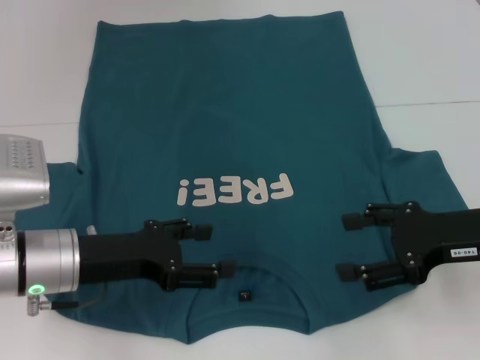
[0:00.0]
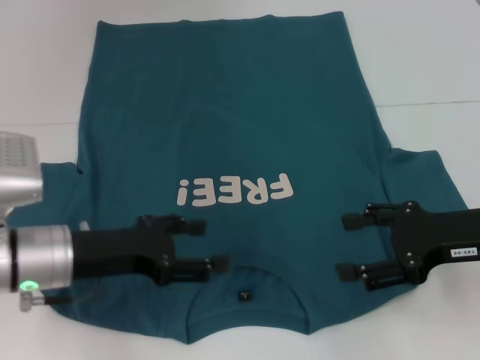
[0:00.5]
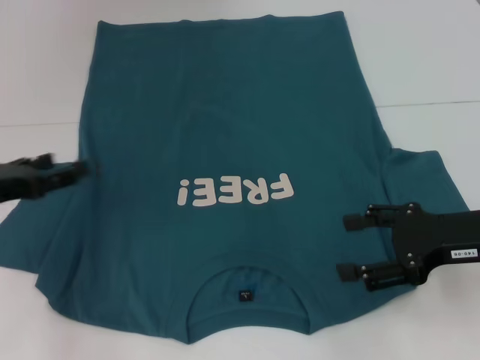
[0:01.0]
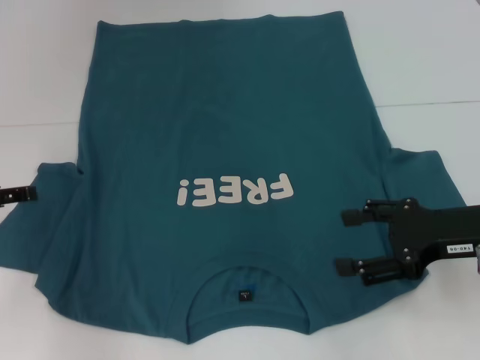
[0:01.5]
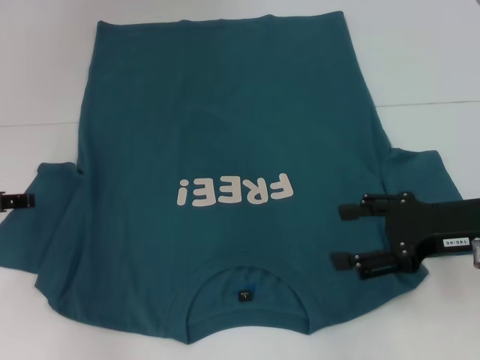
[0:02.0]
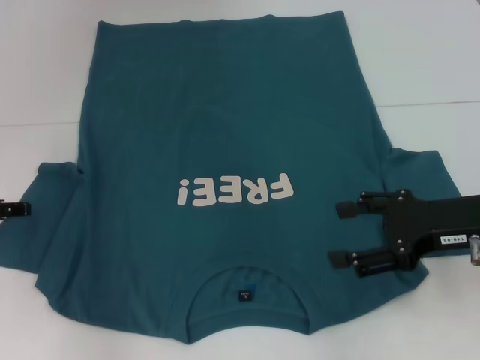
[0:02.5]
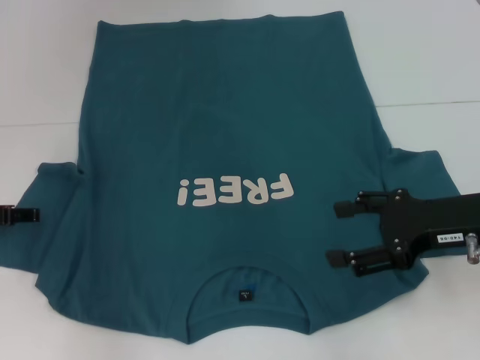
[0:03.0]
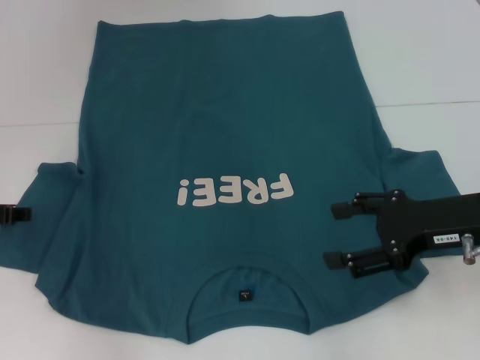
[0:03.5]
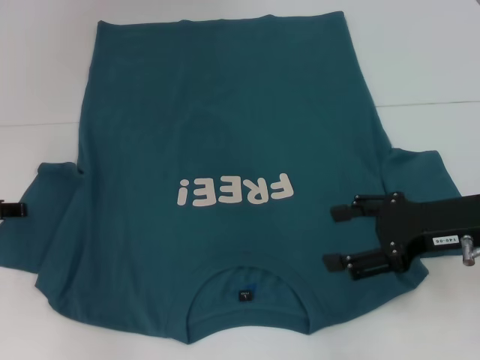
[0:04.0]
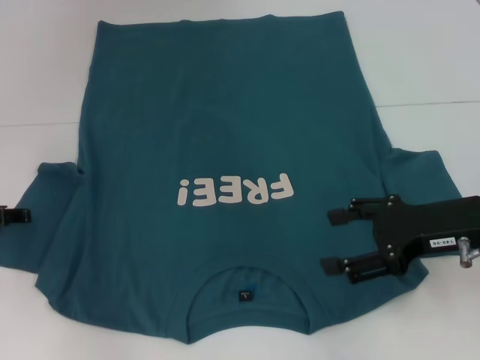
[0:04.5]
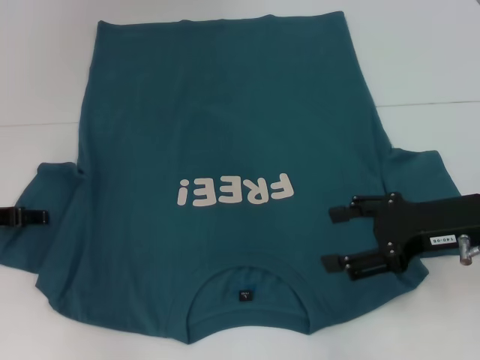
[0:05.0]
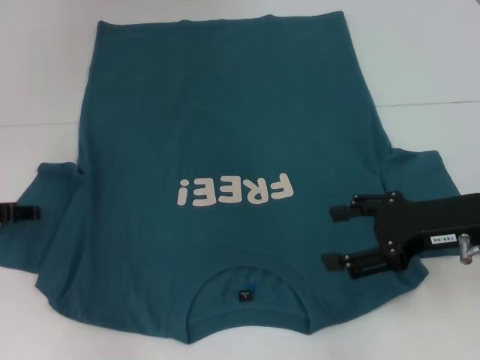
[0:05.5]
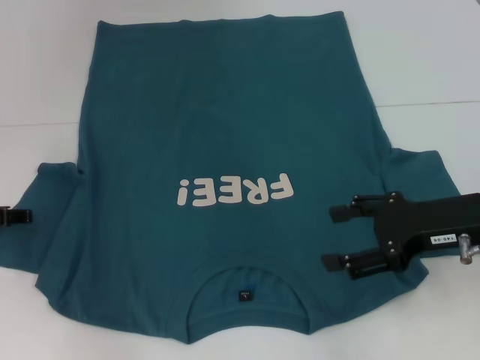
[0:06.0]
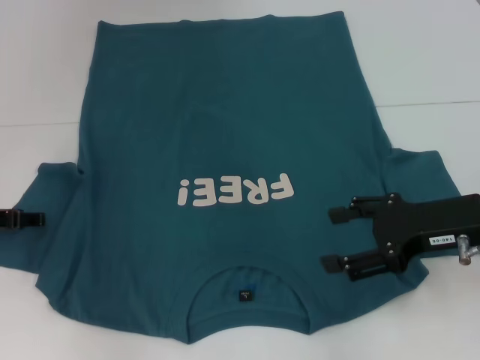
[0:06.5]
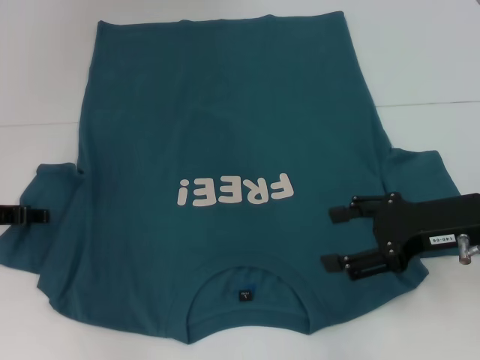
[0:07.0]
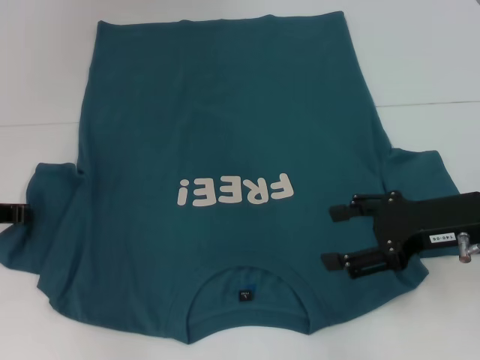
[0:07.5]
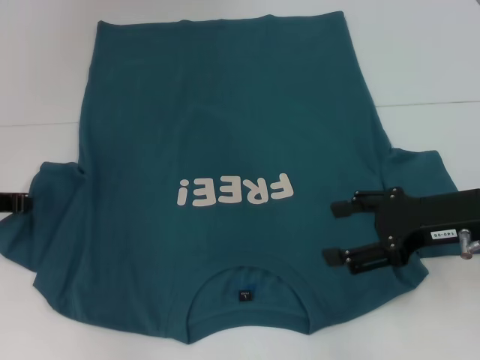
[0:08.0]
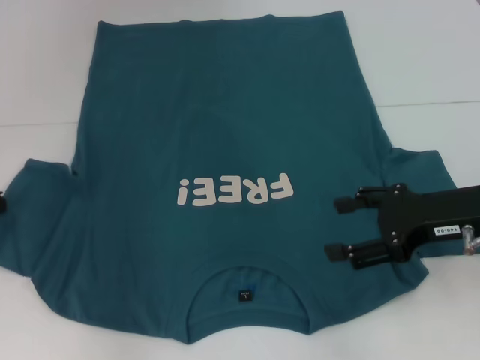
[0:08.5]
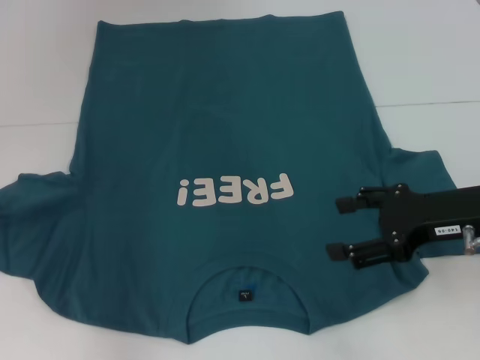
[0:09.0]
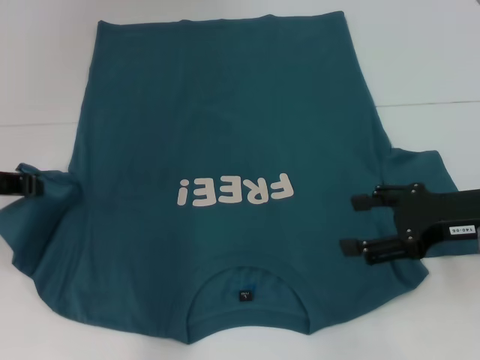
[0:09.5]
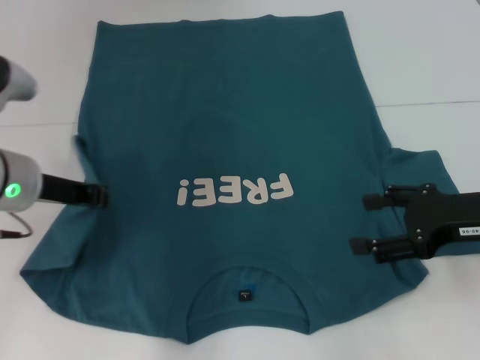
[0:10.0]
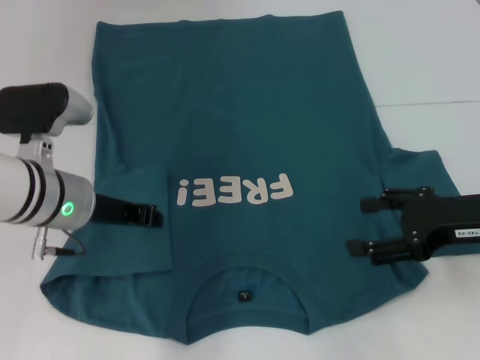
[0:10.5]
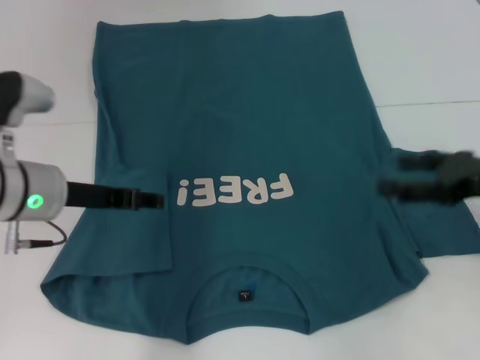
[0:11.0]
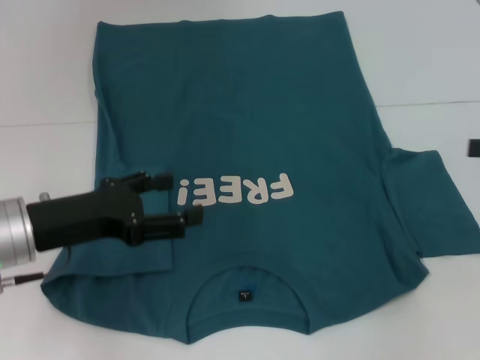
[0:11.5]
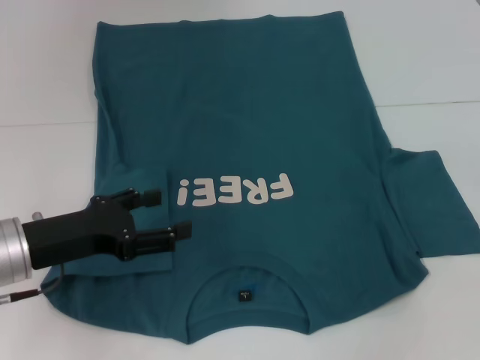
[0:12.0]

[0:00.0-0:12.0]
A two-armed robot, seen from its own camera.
Step, 0:00.0 to 0:10.5: Fold the bottom left sleeve with your left hand.
0:00.0 to 0:02.0: The left gripper is displaced to the left and forward by some 15 cm.
0:06.0 to 0:08.0: The left gripper closes its fingers.
0:08.0 to 0:10.0: The left gripper moves to the right and upward, approximately 10 cm.
0:10.0 to 0:12.0: The right gripper is displaced to the right by about 15 cm. The left gripper heads backward and downward, covering approximately 10 cm, and opens up.

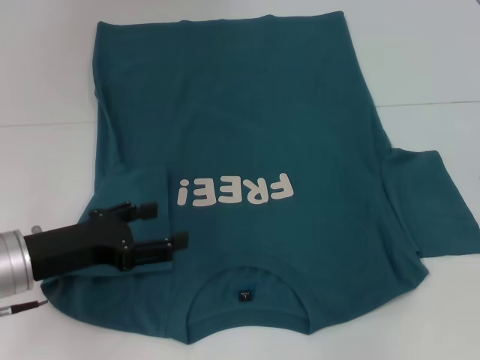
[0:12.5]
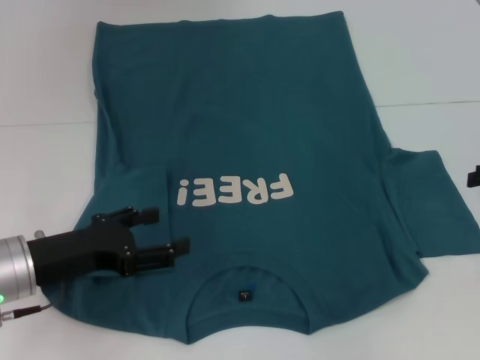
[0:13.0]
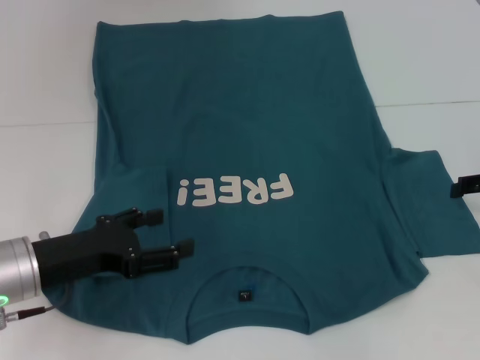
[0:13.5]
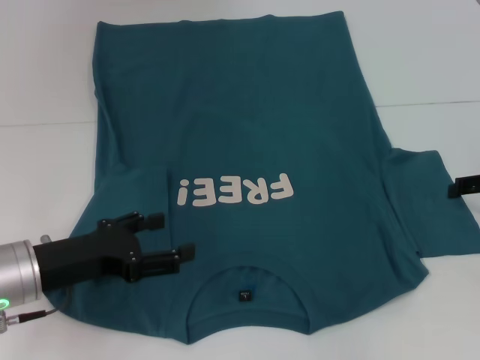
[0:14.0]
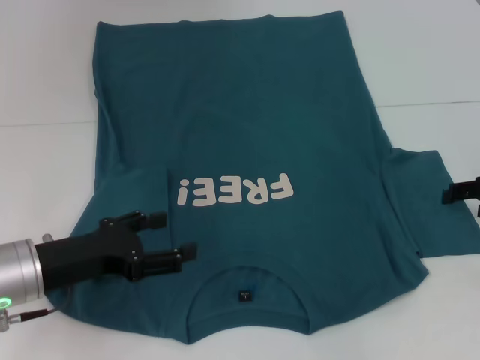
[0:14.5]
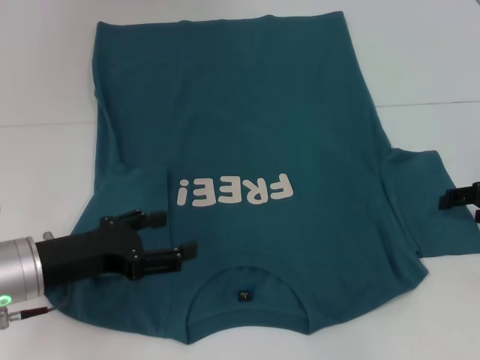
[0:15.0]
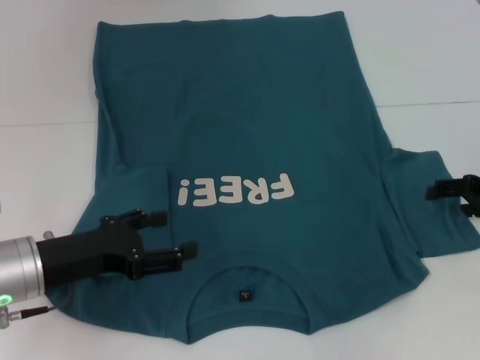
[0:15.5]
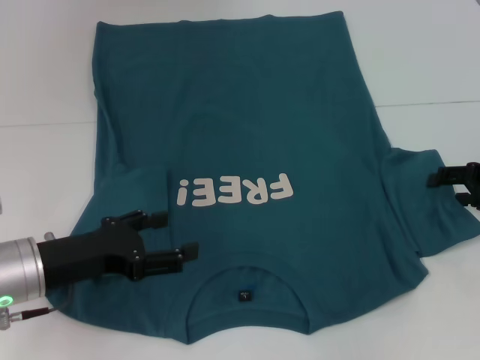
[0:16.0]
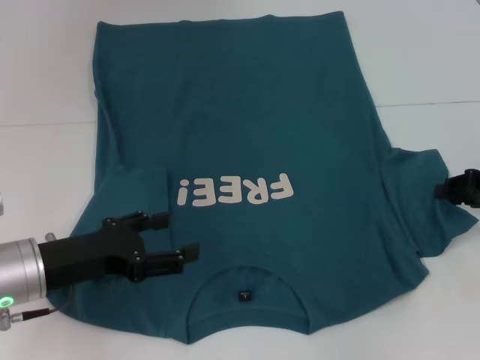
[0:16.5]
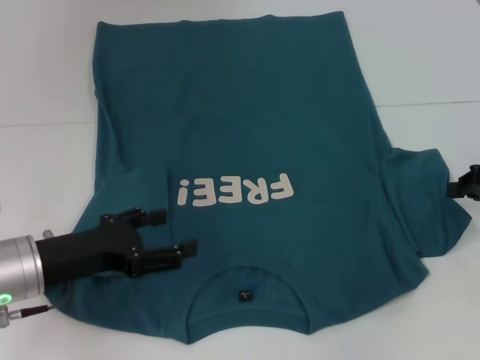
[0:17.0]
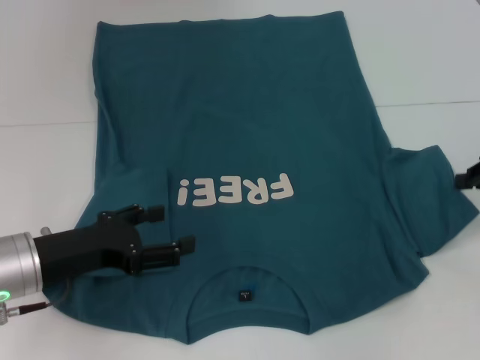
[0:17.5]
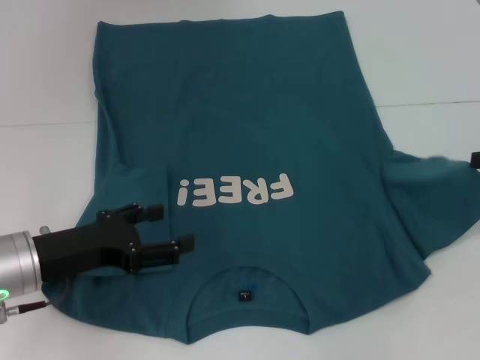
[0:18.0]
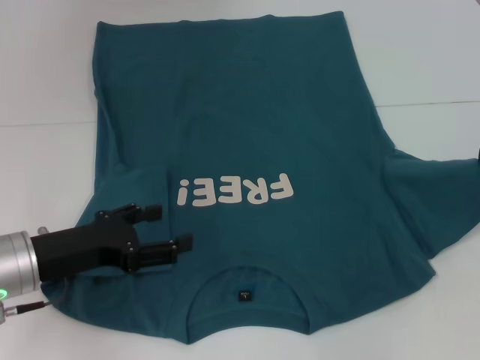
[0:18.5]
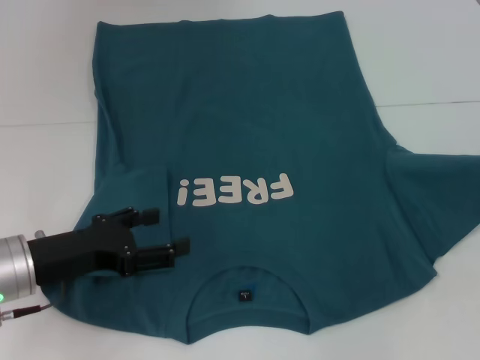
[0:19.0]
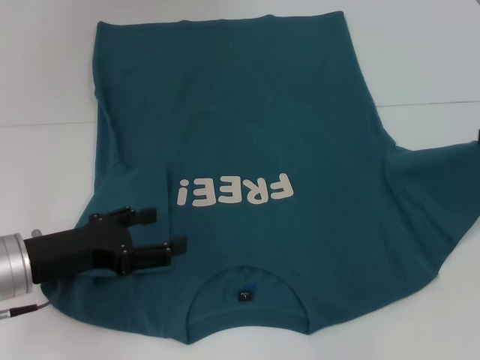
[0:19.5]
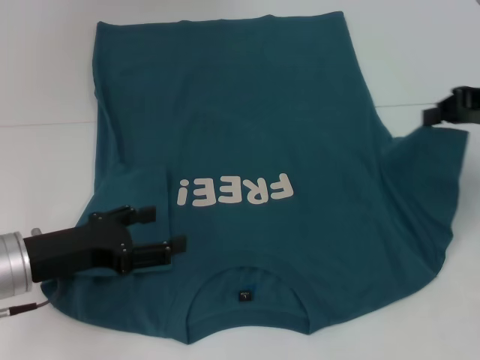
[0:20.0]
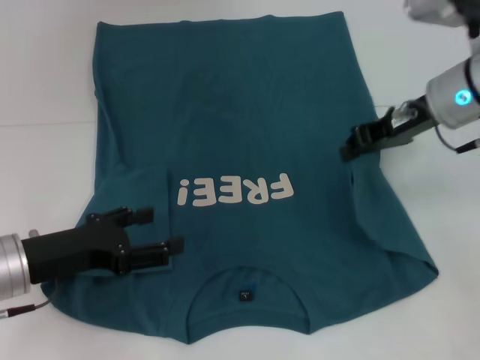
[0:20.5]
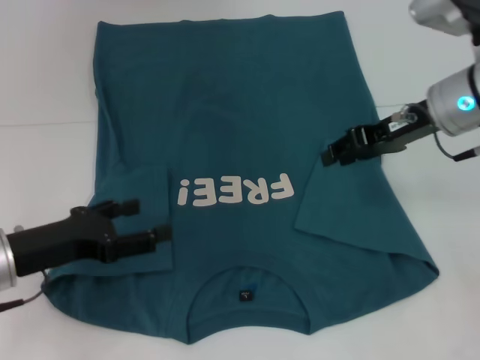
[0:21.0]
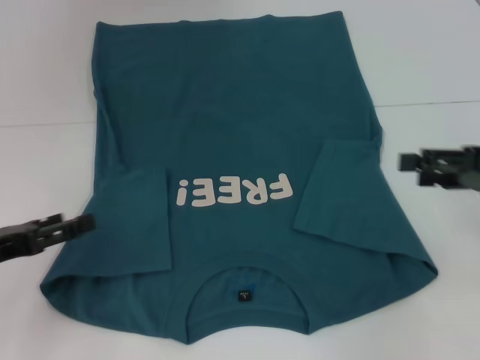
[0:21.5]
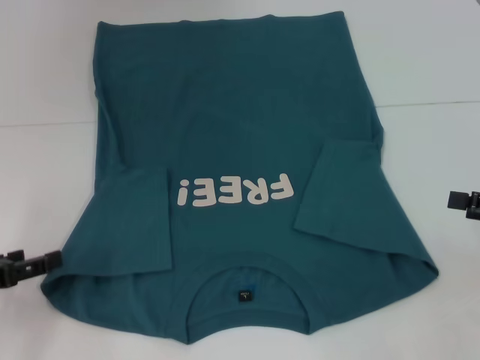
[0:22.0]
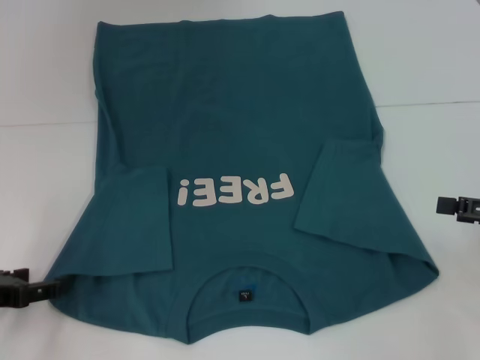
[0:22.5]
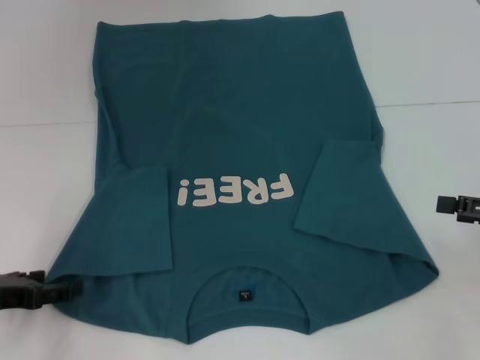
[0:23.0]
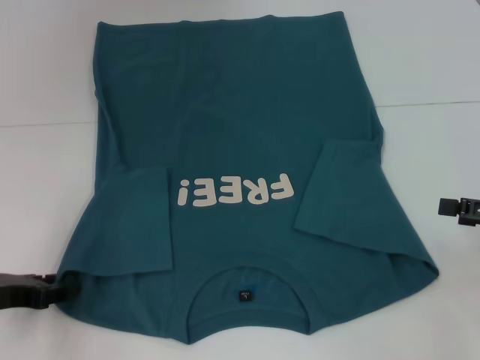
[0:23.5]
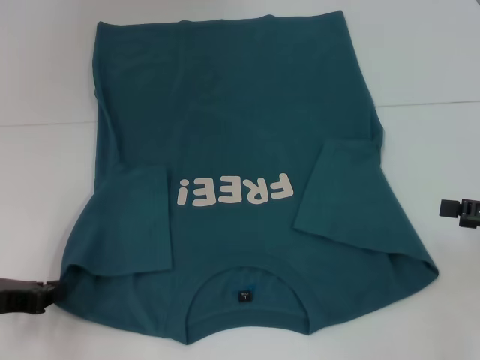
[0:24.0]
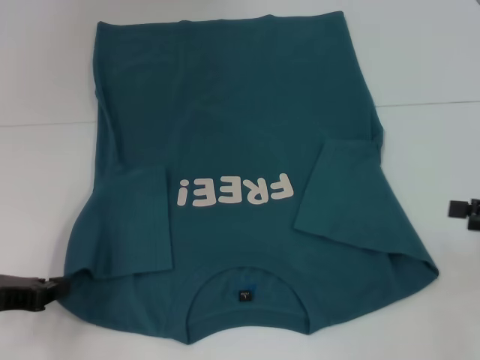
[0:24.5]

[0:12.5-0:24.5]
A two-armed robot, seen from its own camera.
Step, 0:12.5 to 0:20.5: Fold the bottom right sleeve to the right.
0:12.5 to 0:14.5: The right gripper moves downward, some 5 cm.
0:14.5 to 0:16.5: The right gripper closes.
0:16.5 to 0:18.5: The right gripper shifts approximately 5 cm upward, and closes its fingers.
0:18.5 to 0:20.5: The right gripper travels to the left and forward by some 20 cm.
0:20.5 to 0:22.5: The right gripper moves to the right, backward and downward, approximately 20 cm, and opens up; the left gripper goes about 10 cm to the left.
0:22.5 to 0:24.5: The left gripper closes.

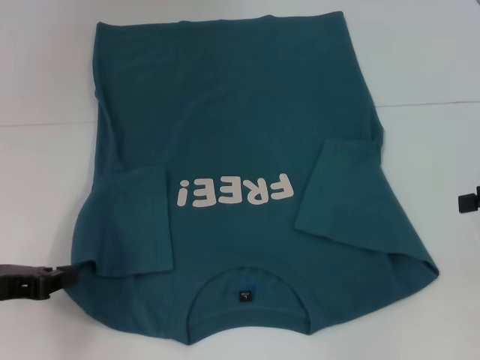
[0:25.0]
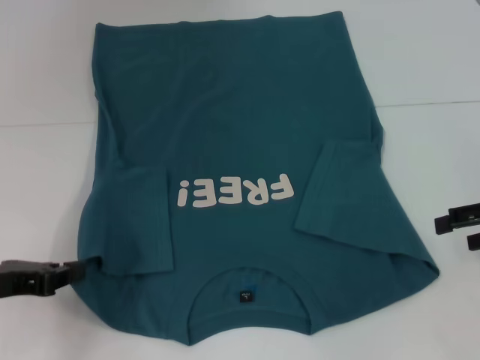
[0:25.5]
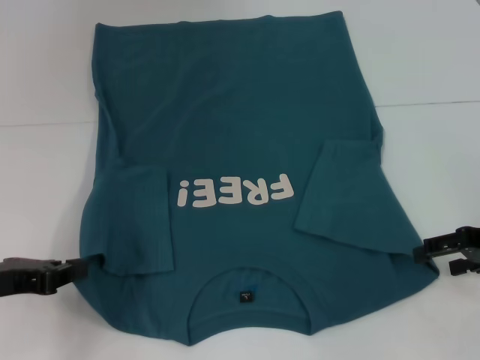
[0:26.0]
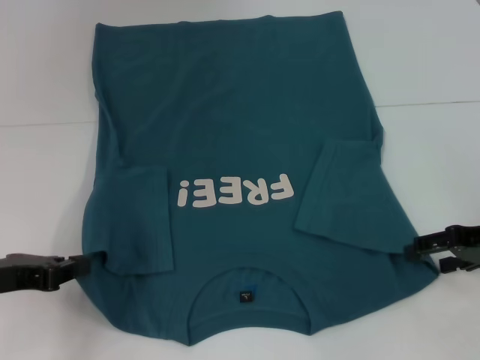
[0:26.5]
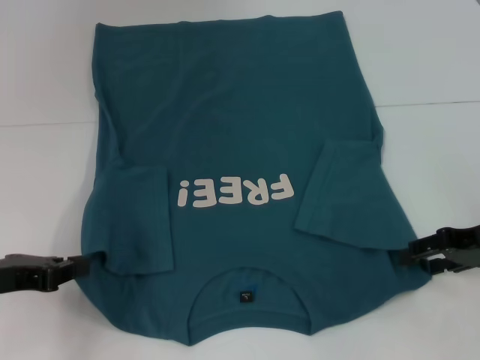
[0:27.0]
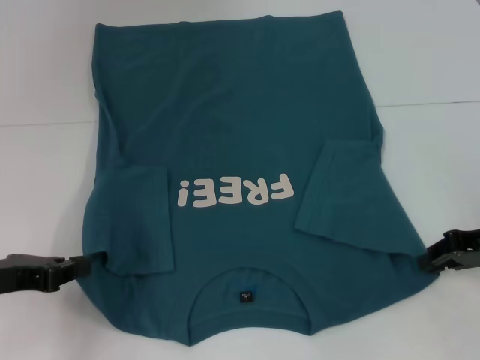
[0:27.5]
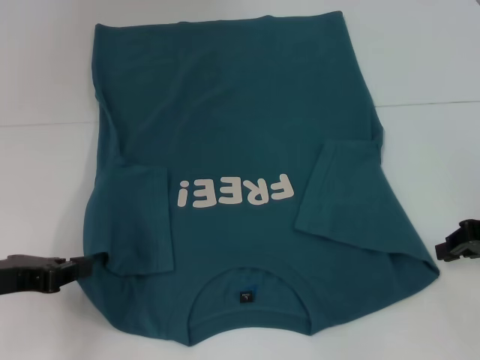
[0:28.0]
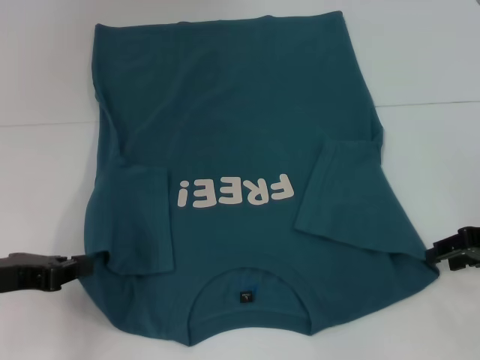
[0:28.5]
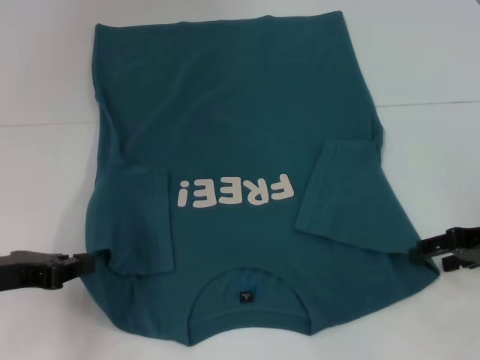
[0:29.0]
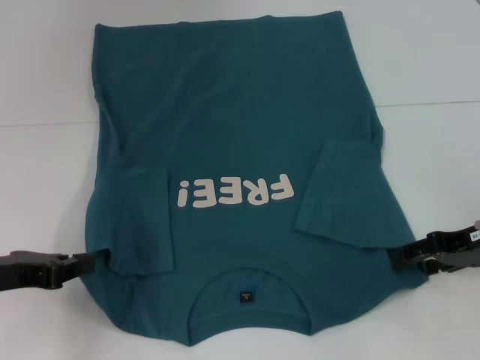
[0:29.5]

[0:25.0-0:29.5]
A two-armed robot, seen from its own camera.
0:25.0 to 0:27.0: The right gripper travels to the left and downward by approximately 10 cm.
0:27.0 to 0:29.5: The right gripper closes and opens again.
